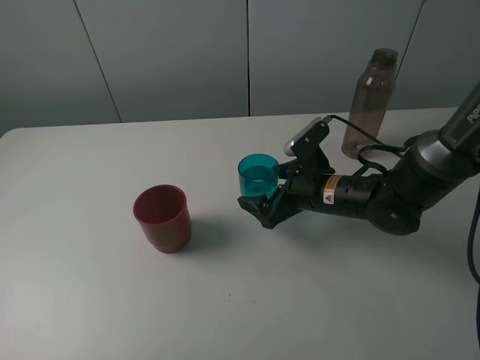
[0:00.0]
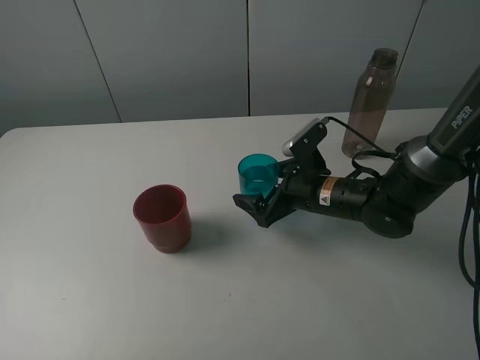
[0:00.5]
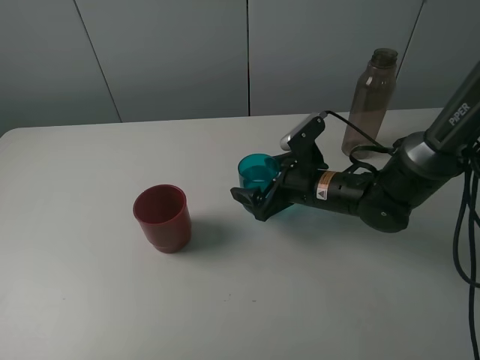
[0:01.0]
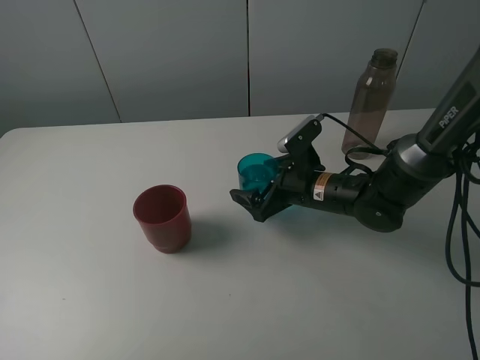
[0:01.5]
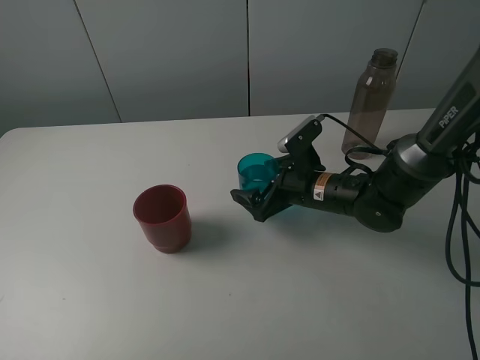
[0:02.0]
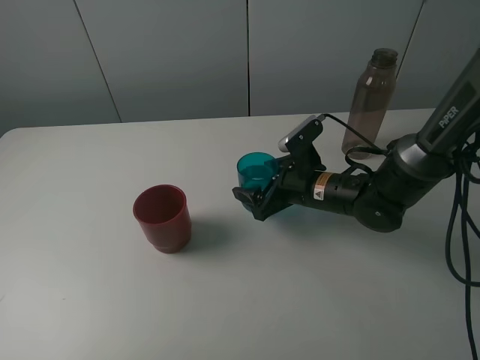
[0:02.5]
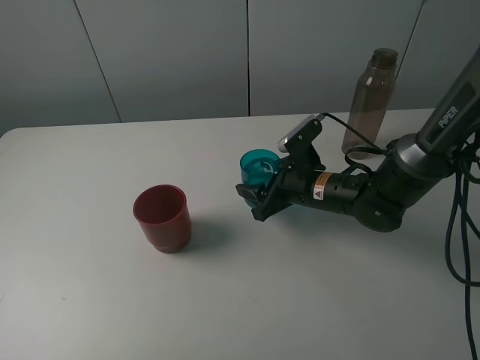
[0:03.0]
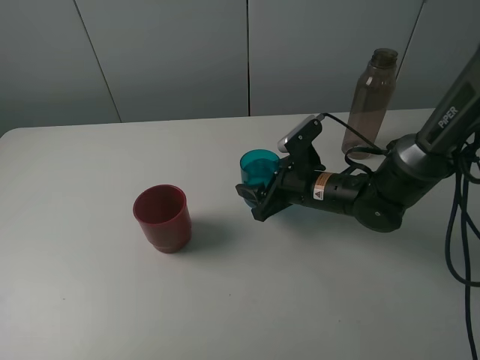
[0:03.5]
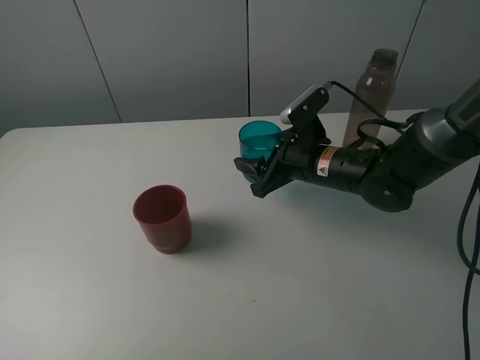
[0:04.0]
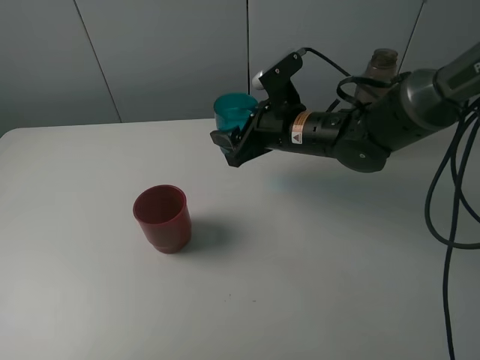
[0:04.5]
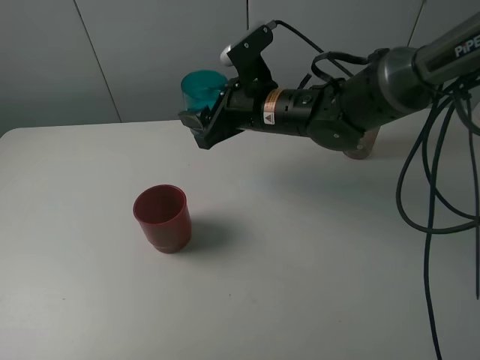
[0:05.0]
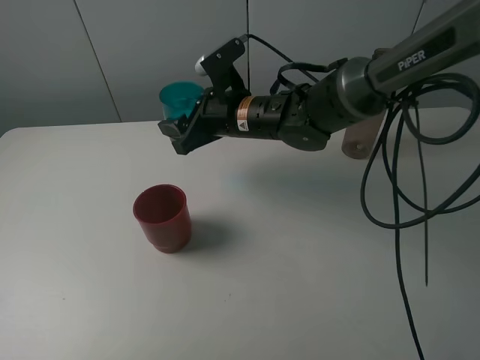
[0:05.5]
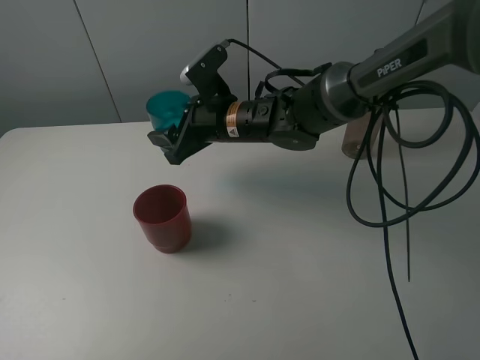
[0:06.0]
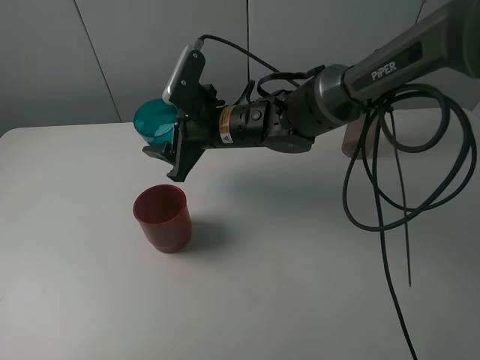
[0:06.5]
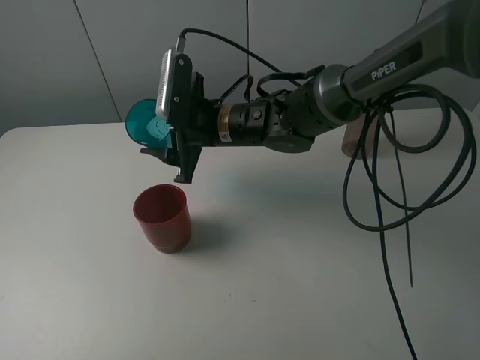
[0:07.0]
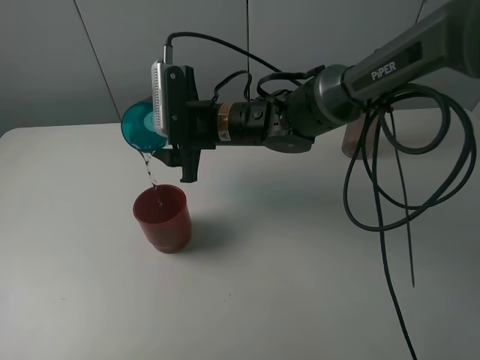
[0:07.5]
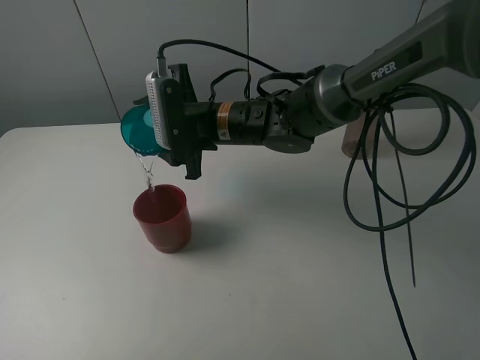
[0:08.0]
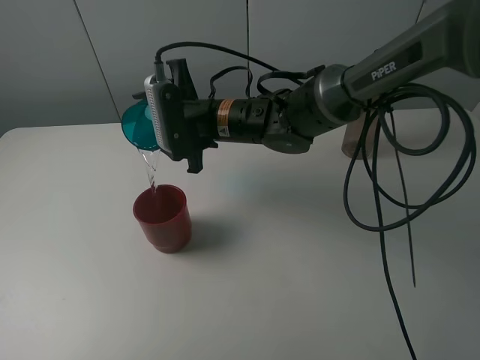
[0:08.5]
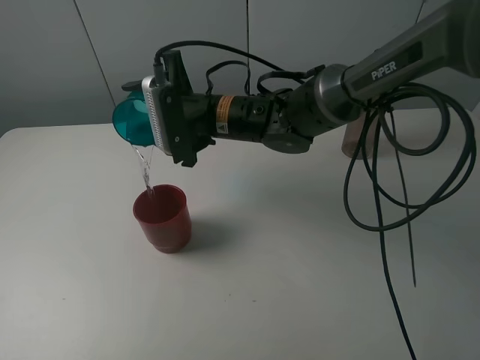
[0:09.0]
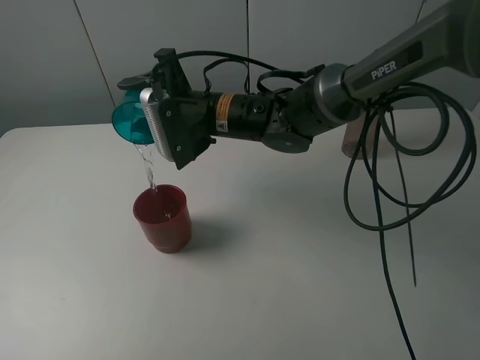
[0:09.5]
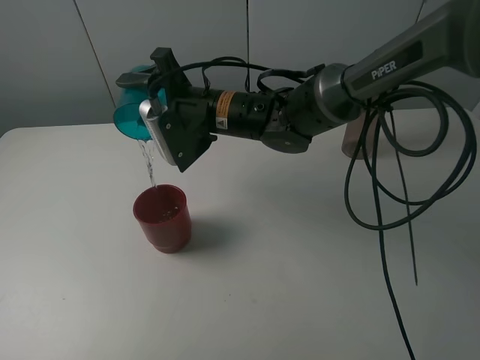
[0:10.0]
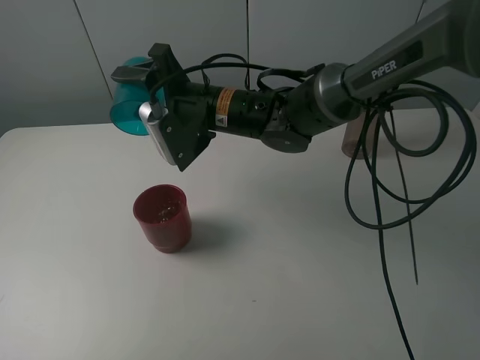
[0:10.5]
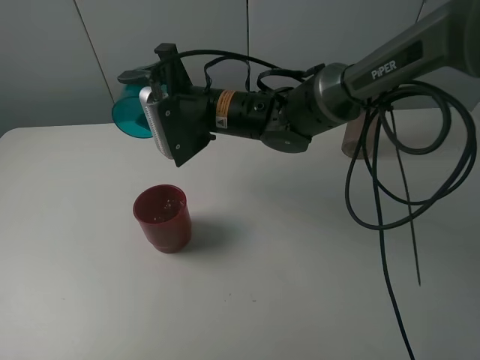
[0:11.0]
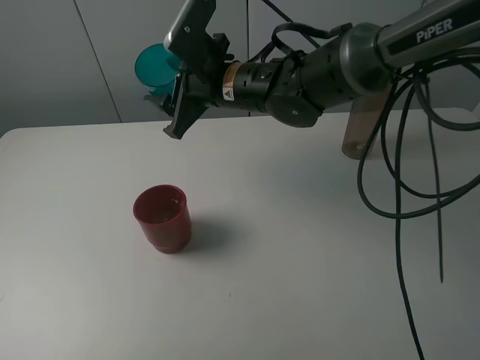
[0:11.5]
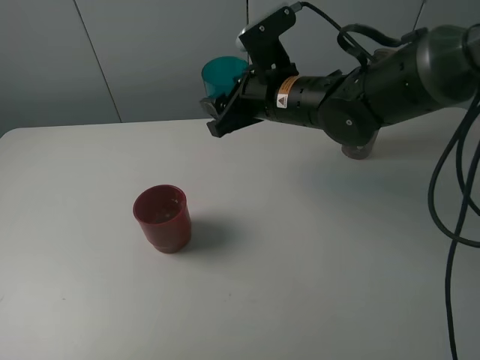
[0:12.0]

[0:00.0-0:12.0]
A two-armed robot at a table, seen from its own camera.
Task of the whole recording: pick up the bottle and pour water into the cup, then pick up the cup containing water and pour it into another cup.
Step, 0:00.0 to 0:02.5: Grasp the blue cup with the right gripper.
Step, 0:03.0 to 0:10.0: Pour water from blue cup to red cup with the right gripper.
0:00.0 to 0:02.0: There are only small adjustments of the grippers.
0:02.0 to 0:04.0: The right gripper heads upward, covering about 5 cm, and closes up.
0:04.0 to 0:06.0: The right gripper travels to the left by roughly 10 cm.
0:10.0 to 0:12.0: The right gripper heads to the right, covering roughly 10 cm.

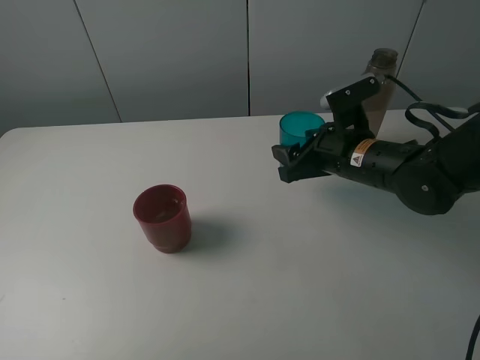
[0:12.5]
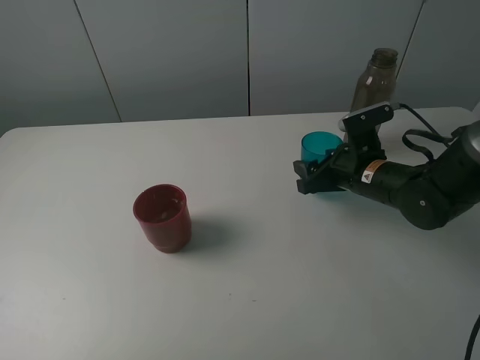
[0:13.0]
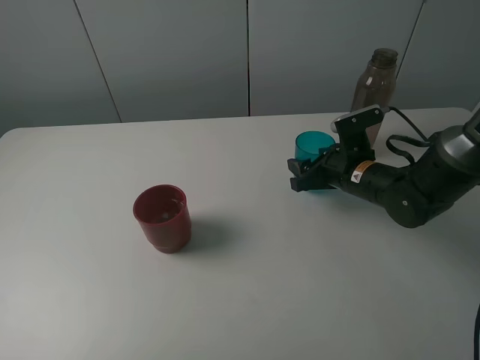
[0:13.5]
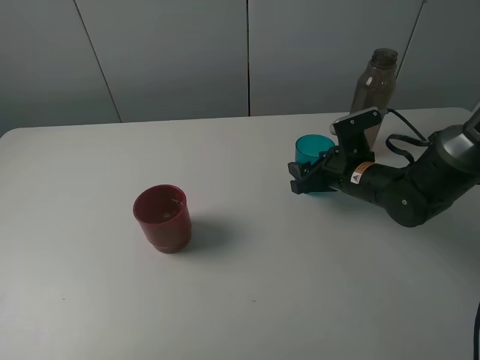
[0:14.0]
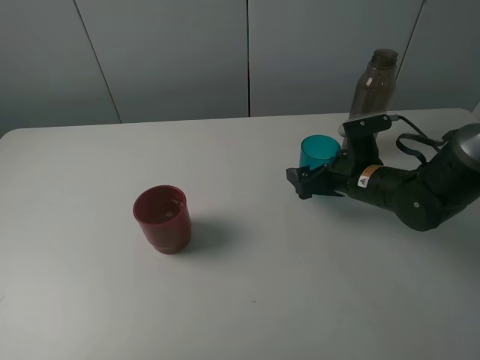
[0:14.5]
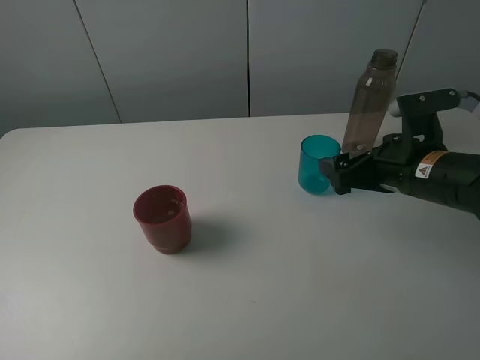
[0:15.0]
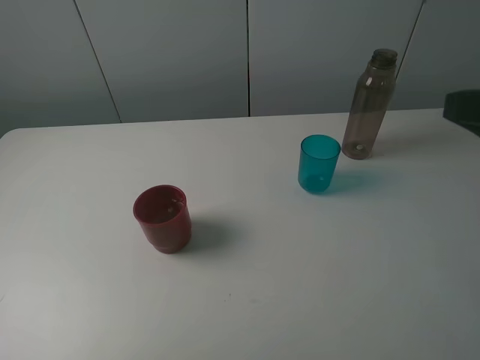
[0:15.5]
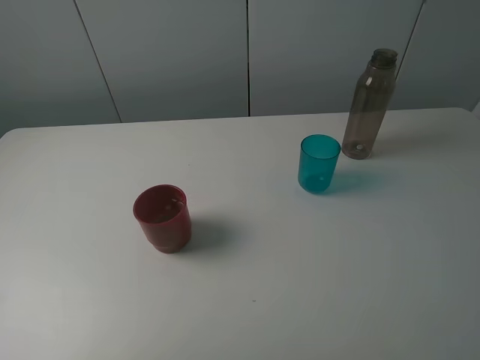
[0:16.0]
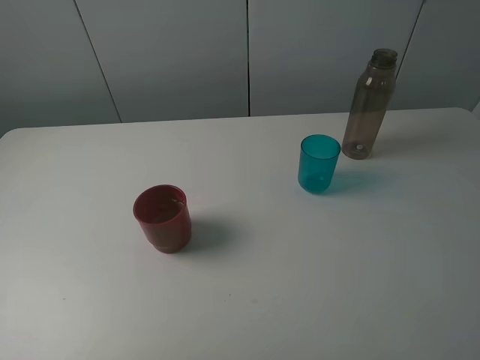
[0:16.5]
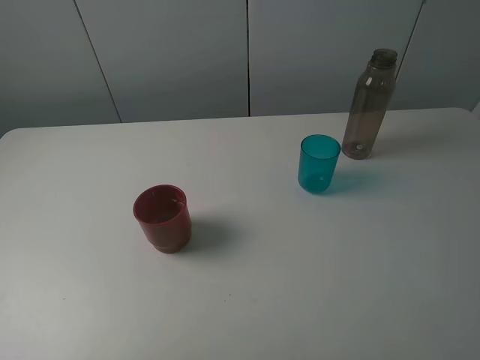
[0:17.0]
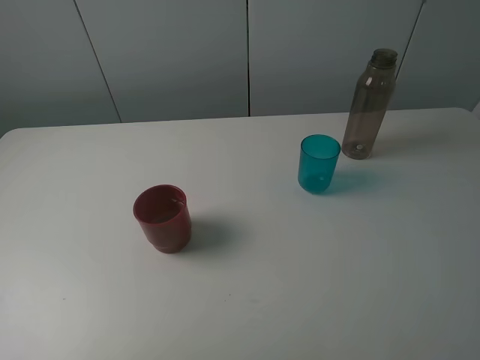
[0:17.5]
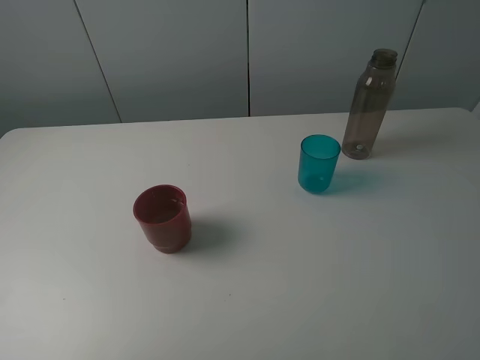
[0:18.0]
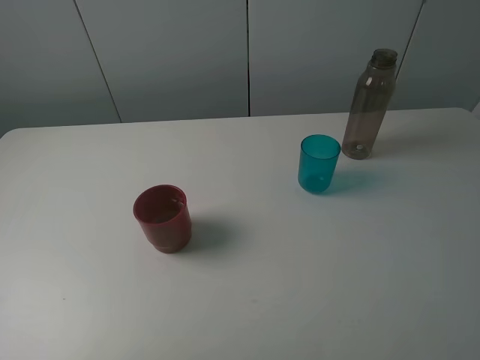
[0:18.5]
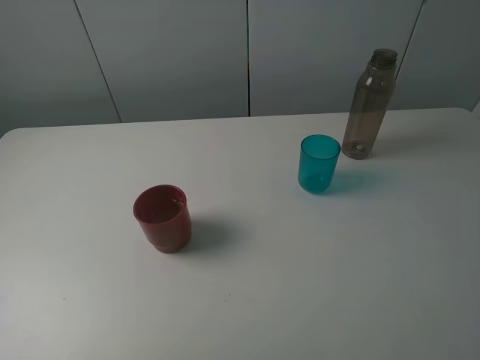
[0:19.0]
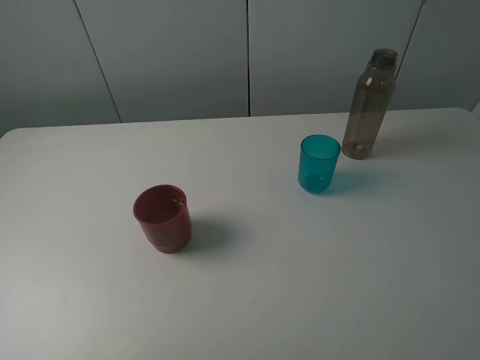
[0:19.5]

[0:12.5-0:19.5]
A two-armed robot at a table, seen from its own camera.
Task of the whole recording: pick up the bottle and pour water into the cup, then pick up the cup containing water and pour it into another cup.
0:12.5 to 0:14.5: The right gripper heads downward, covering about 5 cm, and opens its fingers.
0:14.5 to 0:16.0: The right gripper goes about 35 cm backward and upward.
0:17.5 to 0:19.5: Both grippers stay put.

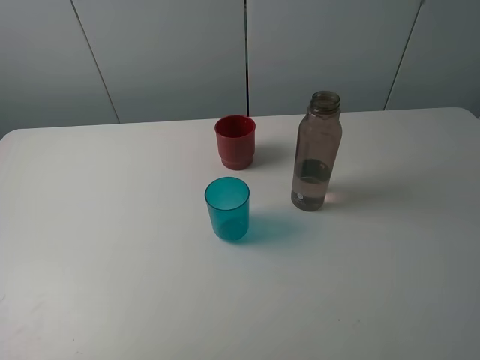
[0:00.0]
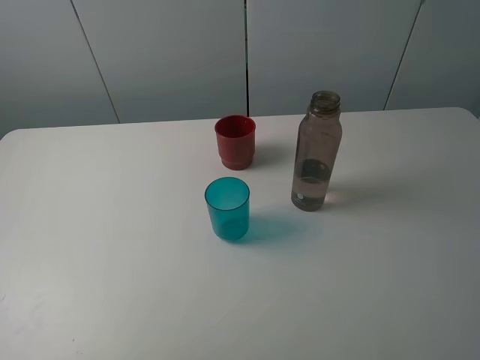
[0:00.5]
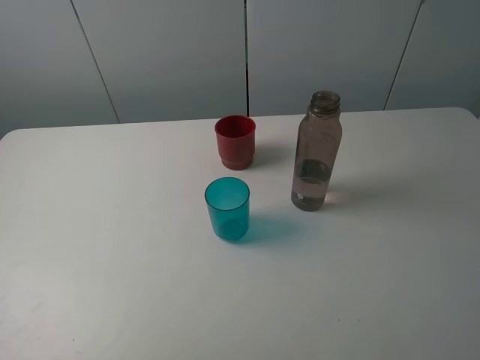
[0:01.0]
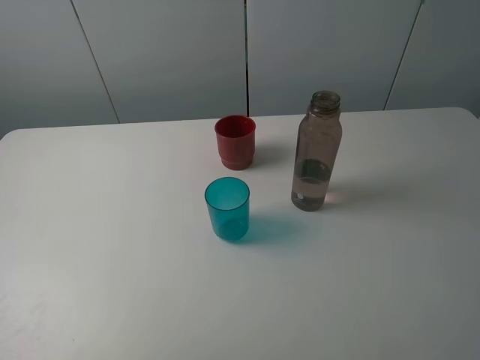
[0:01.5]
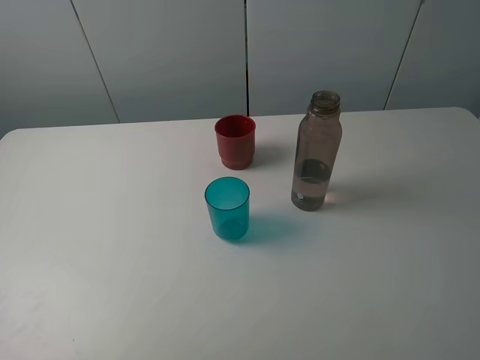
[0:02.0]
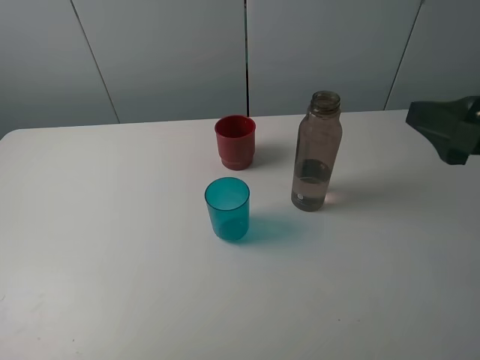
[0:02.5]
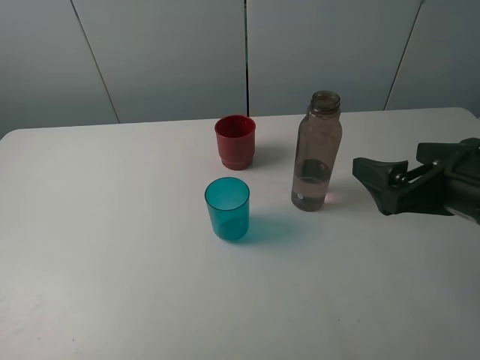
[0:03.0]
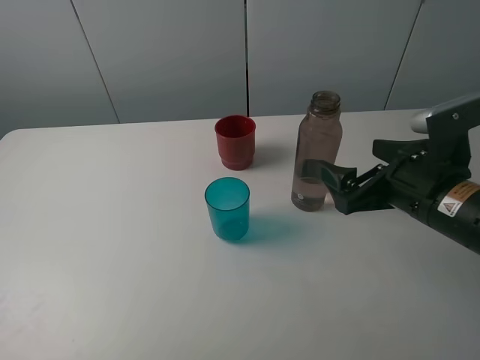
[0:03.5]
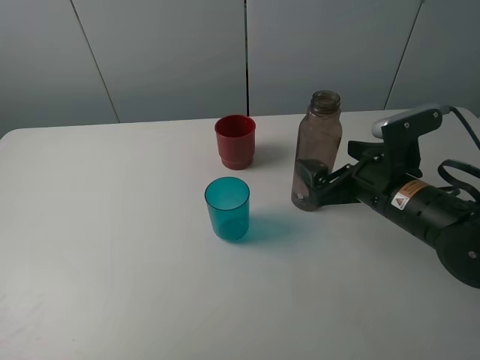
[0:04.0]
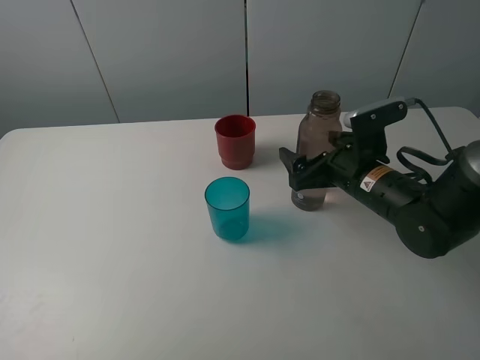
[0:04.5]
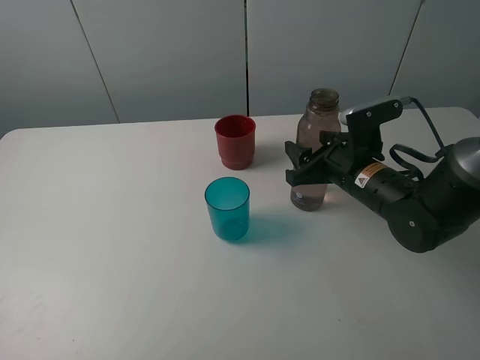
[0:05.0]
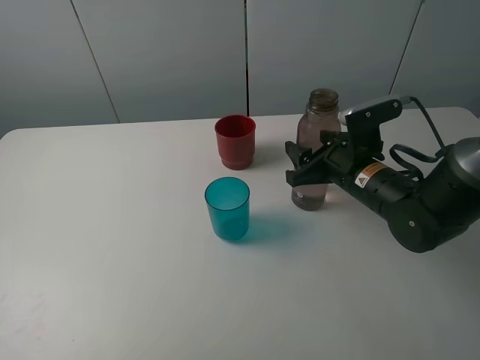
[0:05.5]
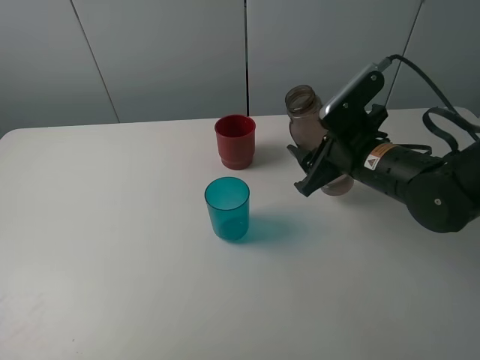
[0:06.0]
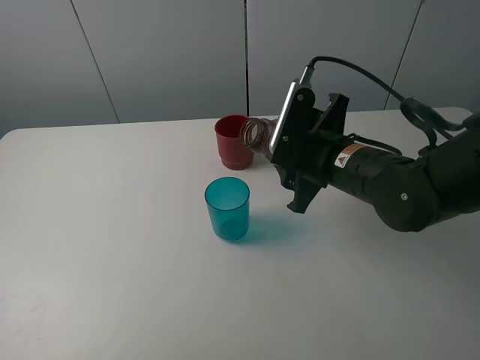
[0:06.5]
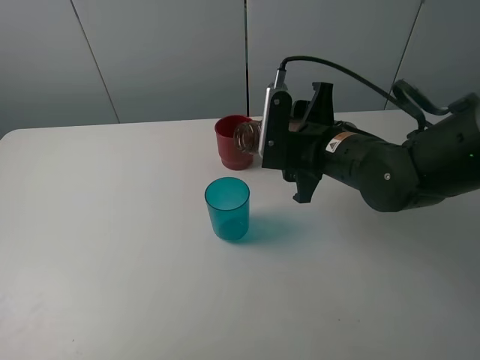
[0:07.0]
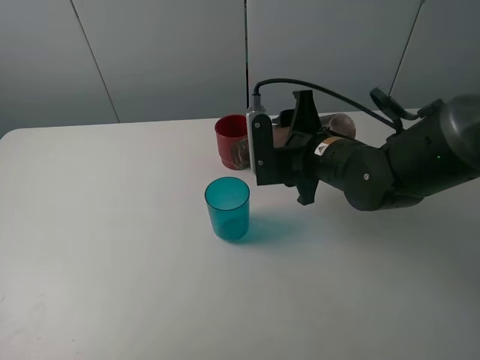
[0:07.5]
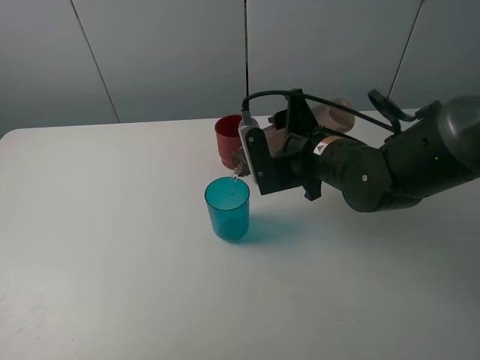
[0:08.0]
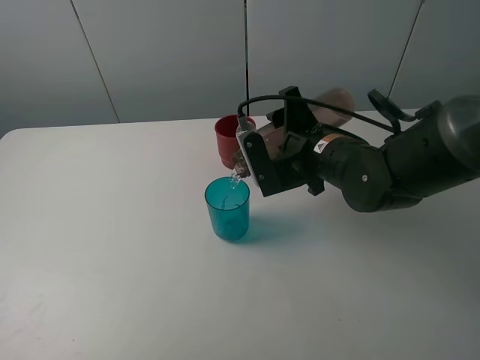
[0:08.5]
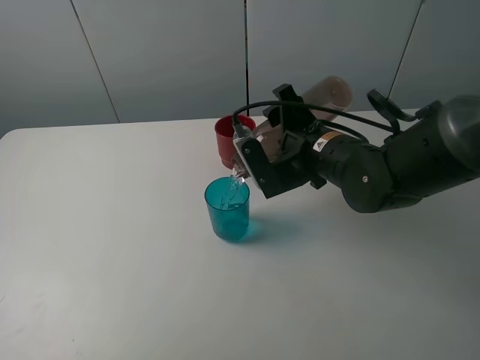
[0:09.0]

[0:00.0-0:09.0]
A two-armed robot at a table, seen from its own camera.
Task of the whole recording: pick up the bottle and pour water into the cup, then pick up the cup containing water and pour it into another cup.
Step, 0:00.0 to 0:05.0: Grasp the brown bottle with the right gripper.
0:02.0 to 0:04.5: The right gripper shifts some 35 cm downward, forward and to the left.
0:04.5 to 0:07.0: The right gripper travels to the left and upward by roughly 5 cm, and closes.
